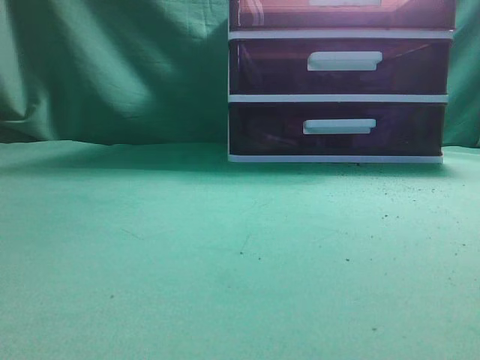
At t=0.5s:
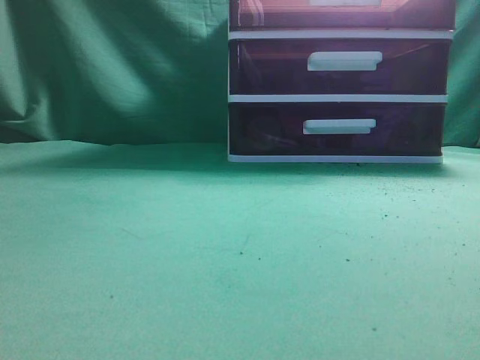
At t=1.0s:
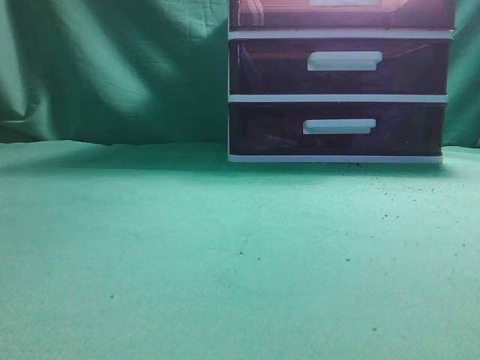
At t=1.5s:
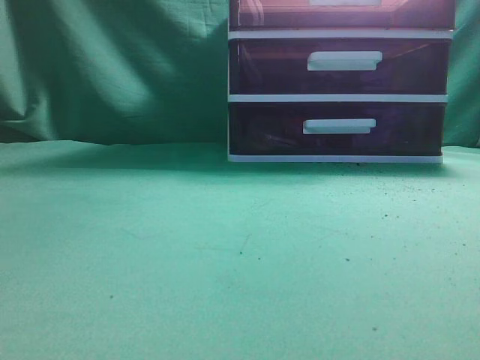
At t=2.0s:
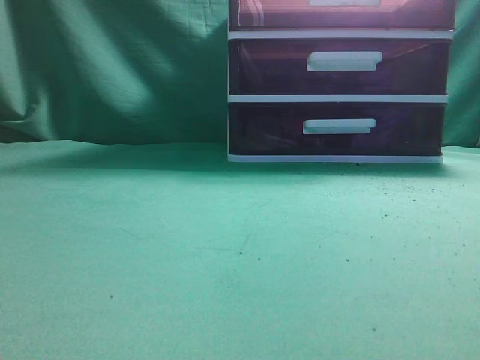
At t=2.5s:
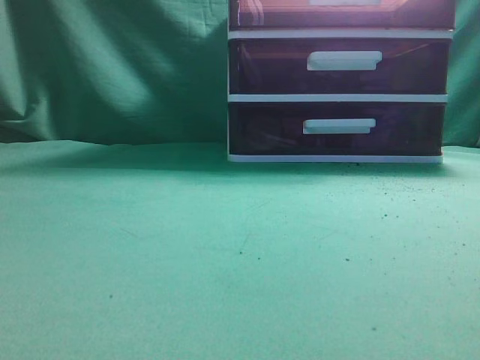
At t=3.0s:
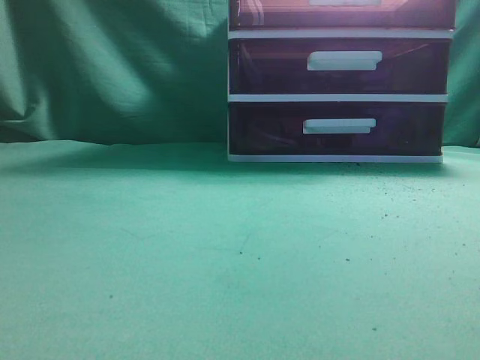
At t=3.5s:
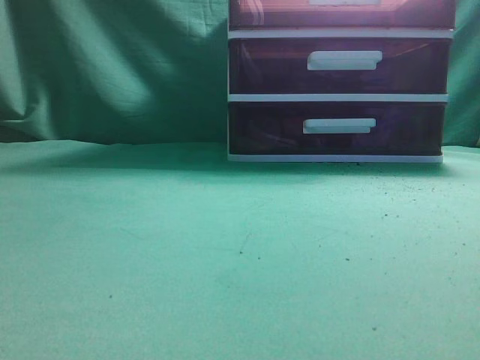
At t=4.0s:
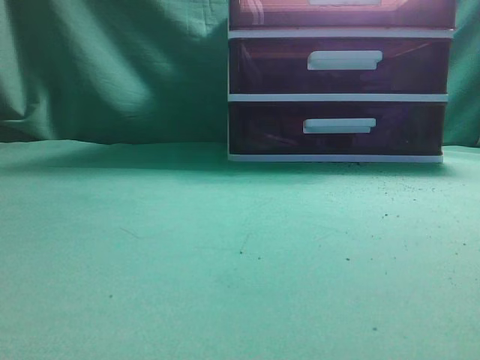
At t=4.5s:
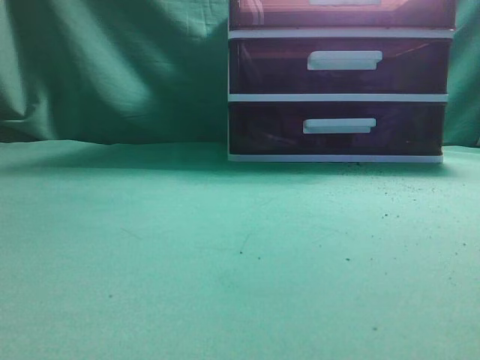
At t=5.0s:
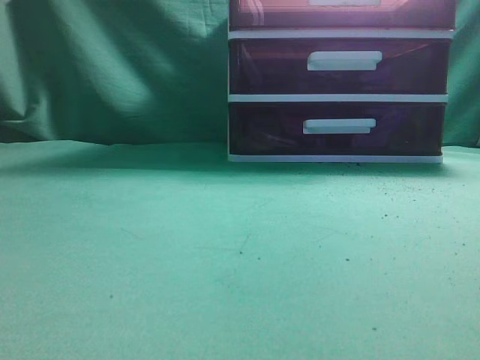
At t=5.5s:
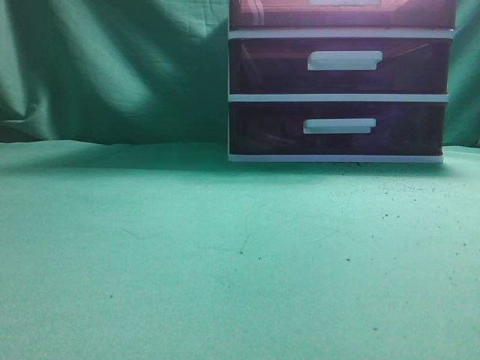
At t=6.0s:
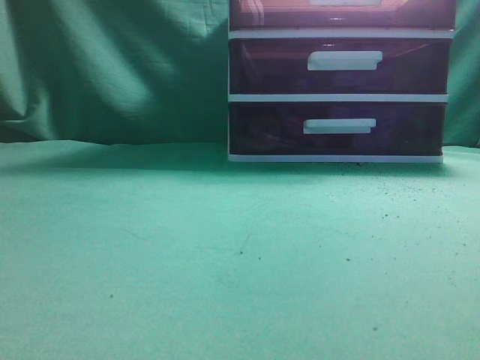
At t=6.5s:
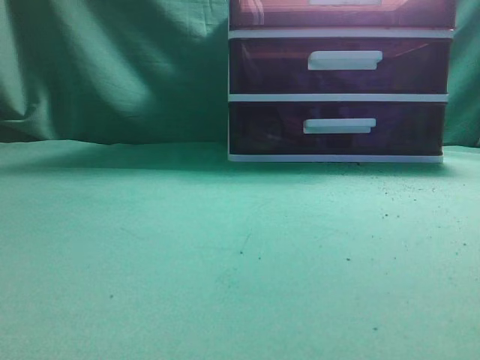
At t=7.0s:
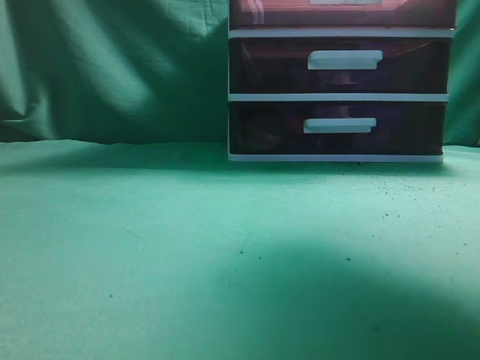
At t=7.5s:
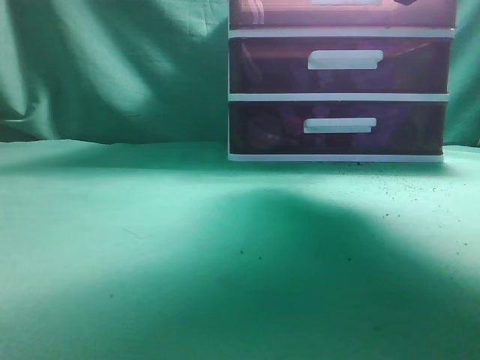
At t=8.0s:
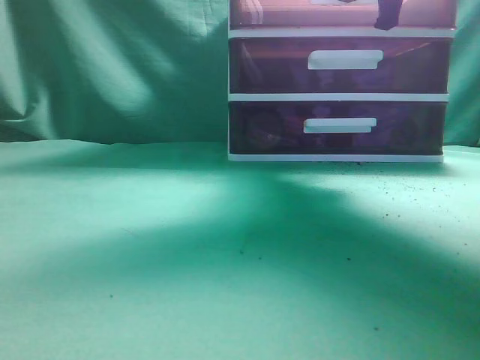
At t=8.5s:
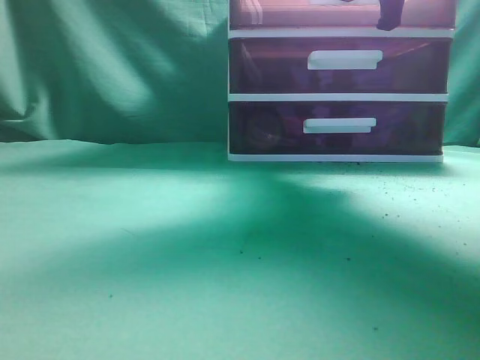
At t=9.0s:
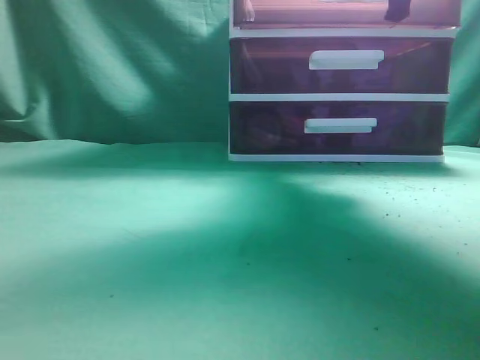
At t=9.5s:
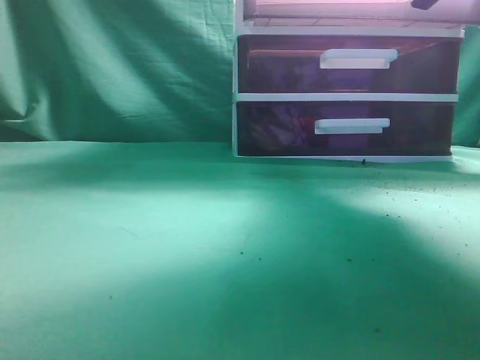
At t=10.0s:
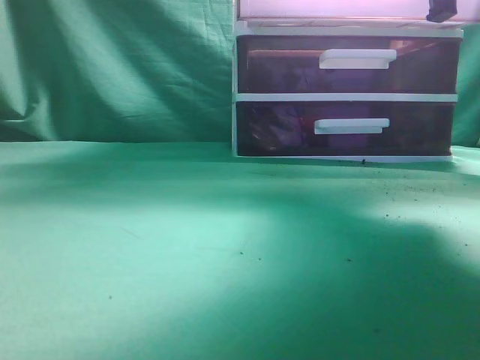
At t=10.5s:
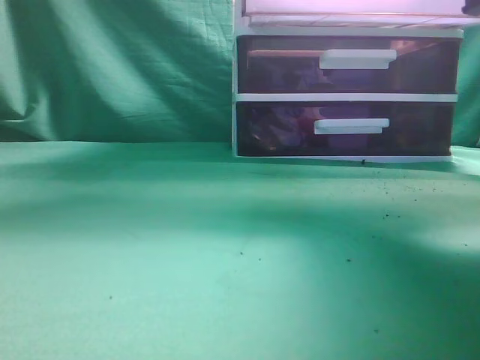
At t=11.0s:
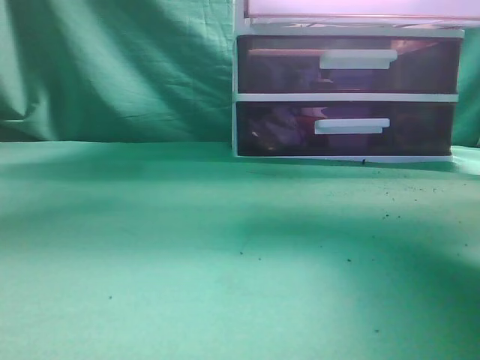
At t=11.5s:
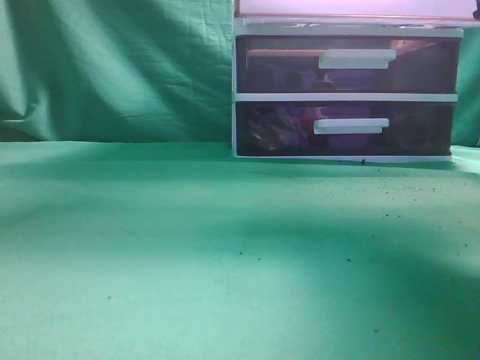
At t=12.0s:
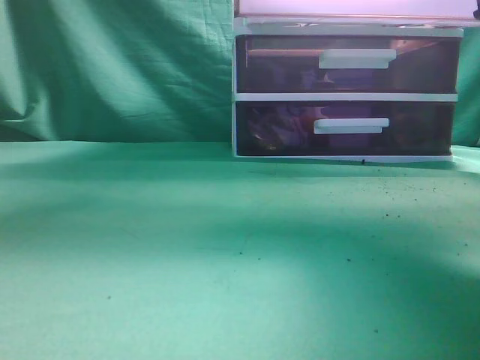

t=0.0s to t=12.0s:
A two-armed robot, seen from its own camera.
Task of the whole recording: place the water bottle into the drawer.
Step, t=0.0s to t=11.0s: Open the drawer.
t=6.0s to t=8.0s: The right gripper is displaced forward by some 35 cm.
t=8.0s to t=10.0s: The right gripper moves backward, approximately 10 cm.
t=10.0s to t=12.0s: The right gripper moves backward, approximately 5 cm. Meanwhile the left gripper heads forward, upward and to the right, covering approximately 20 cm.

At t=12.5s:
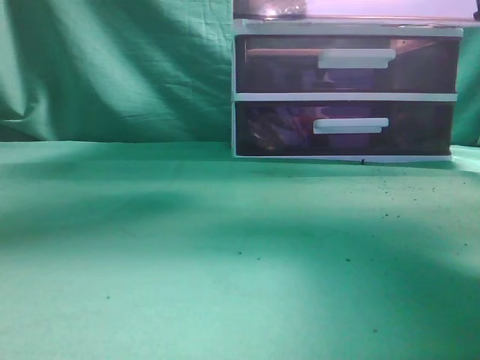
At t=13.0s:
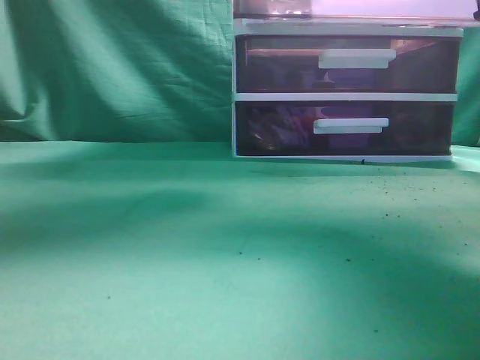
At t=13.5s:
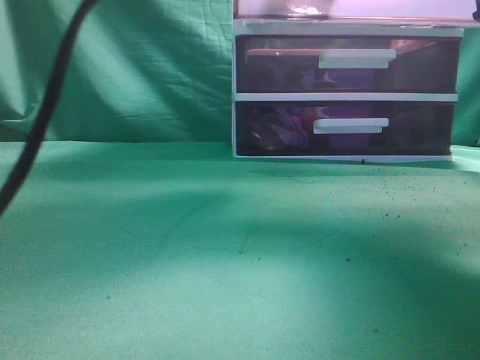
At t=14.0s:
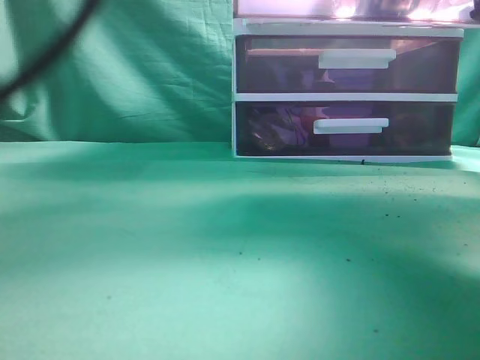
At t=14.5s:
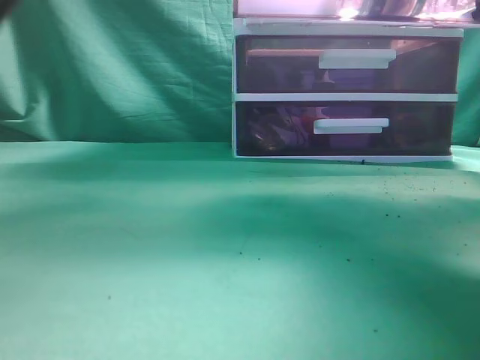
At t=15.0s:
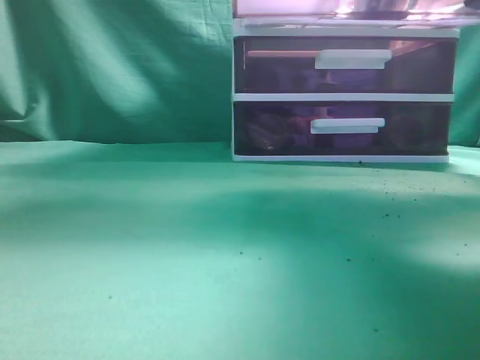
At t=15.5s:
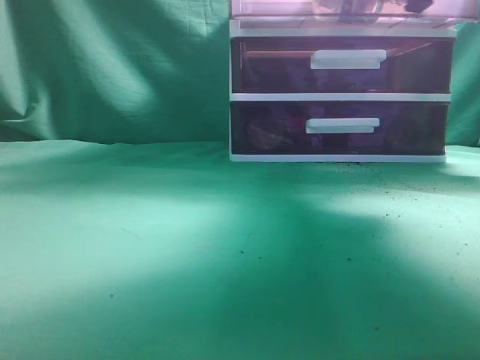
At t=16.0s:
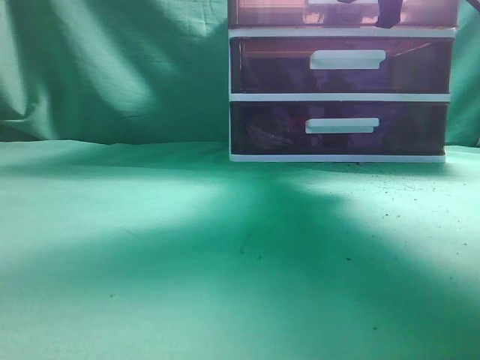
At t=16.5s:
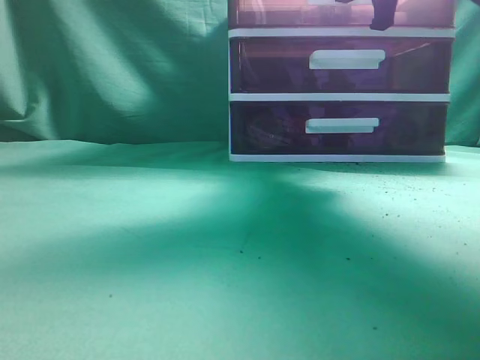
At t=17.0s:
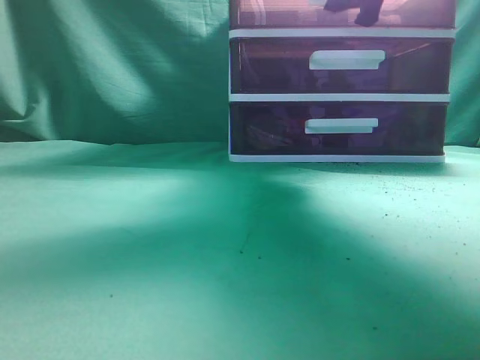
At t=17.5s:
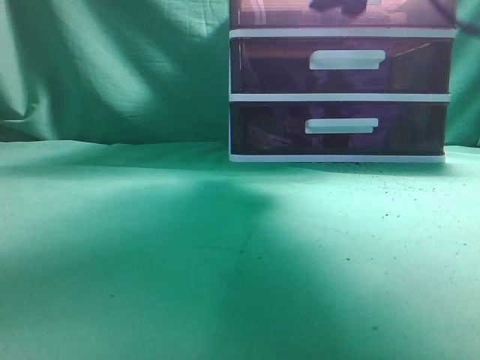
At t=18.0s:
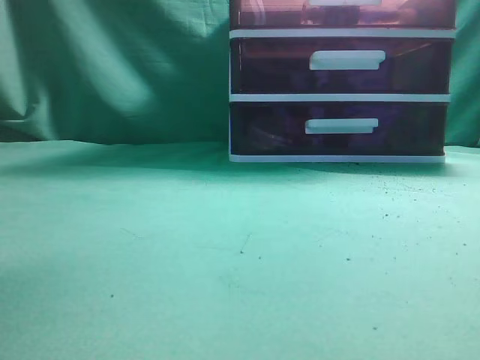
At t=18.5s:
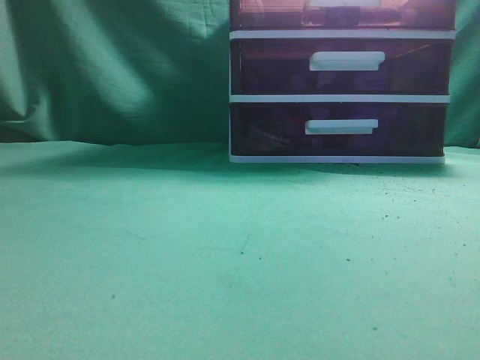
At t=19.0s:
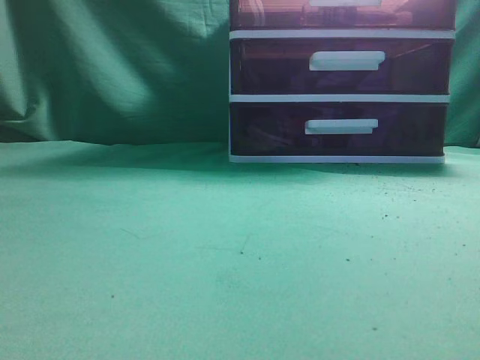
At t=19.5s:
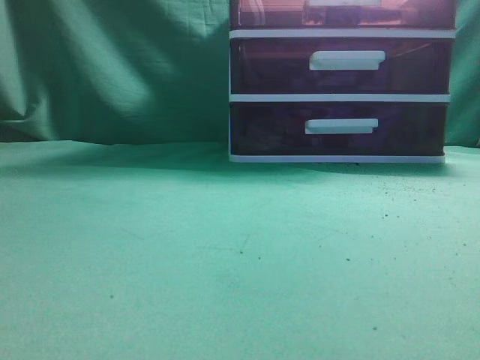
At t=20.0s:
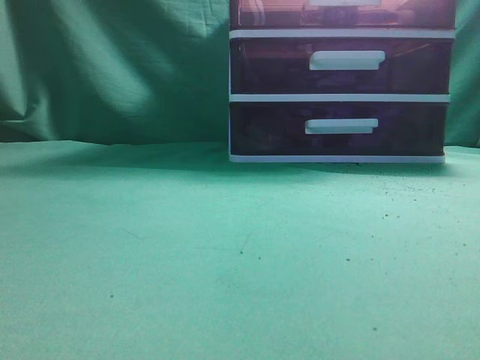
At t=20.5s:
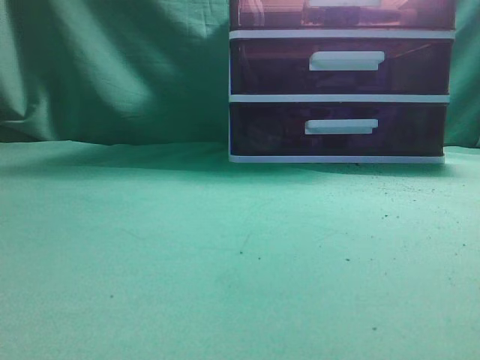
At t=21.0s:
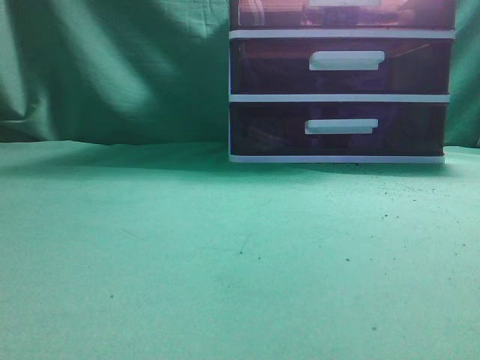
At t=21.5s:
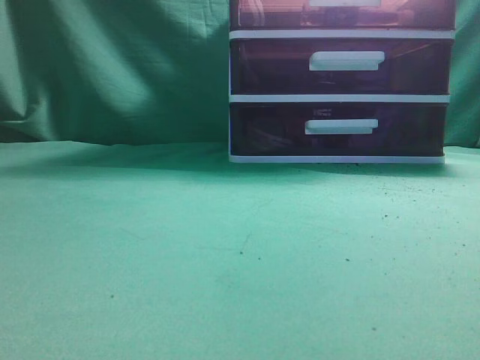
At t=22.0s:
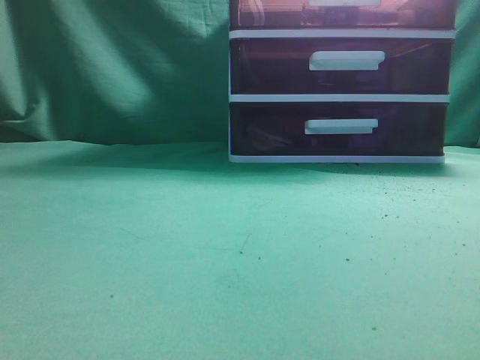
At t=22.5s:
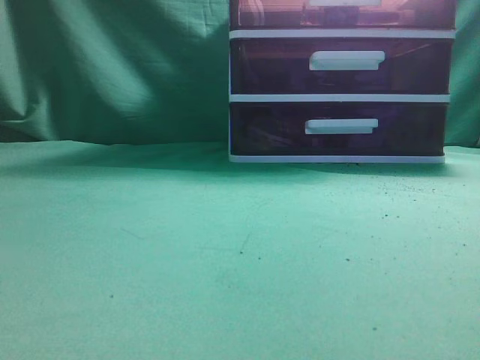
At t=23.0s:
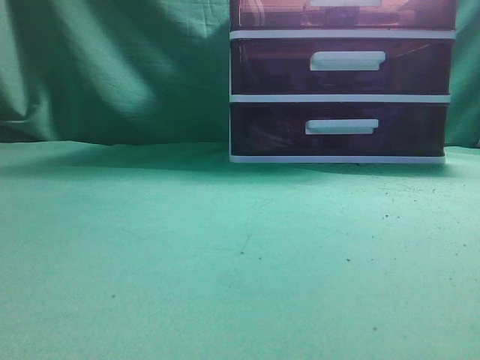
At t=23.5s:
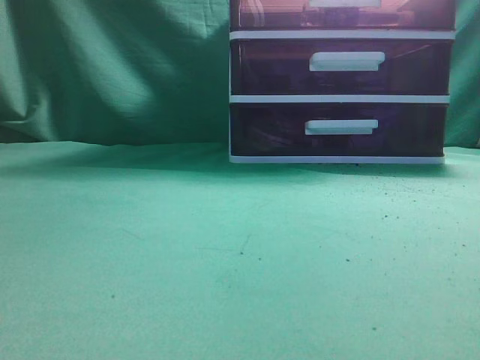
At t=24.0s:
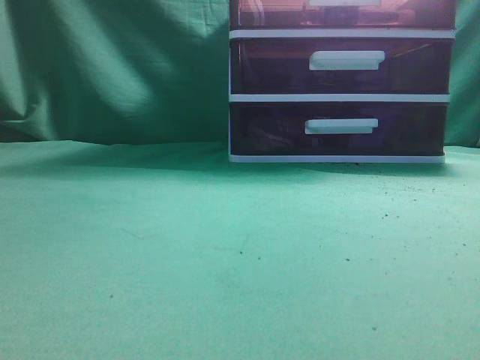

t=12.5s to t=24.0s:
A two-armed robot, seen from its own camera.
Task of the whole recording: place the water bottle into the drawer.
Step, t=12.5s to t=15.0s: Place the water bottle inside the drawer.
Step, t=15.5s to t=17.5s: Close the drawer.
t=12.5s to t=14.5s: The left gripper heads to the right, covering about 10 cm, and closes its fingers.
t=14.5s to t=16.5s: The left gripper shifts some 40 cm backward and to the left. Meanwhile the right gripper heads forward, covering about 15 cm.
t=16.5s to t=18.5s: The right gripper moves backward and upward, approximately 30 cm, and opens, then closes once more. Meanwhile the left gripper travels backward, downward and to the left by roughly 10 cm.
